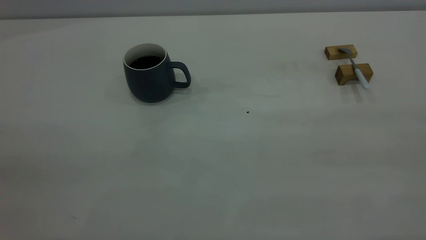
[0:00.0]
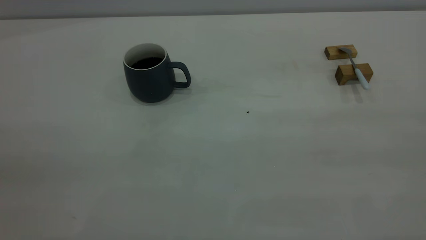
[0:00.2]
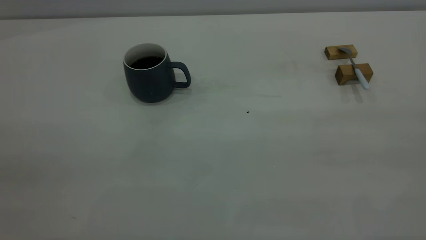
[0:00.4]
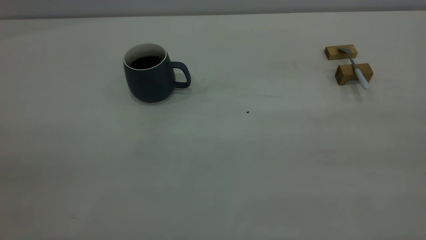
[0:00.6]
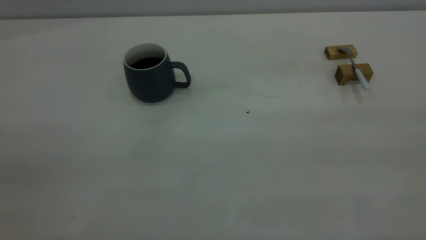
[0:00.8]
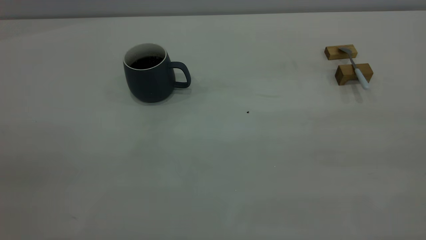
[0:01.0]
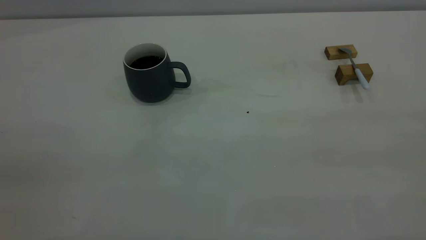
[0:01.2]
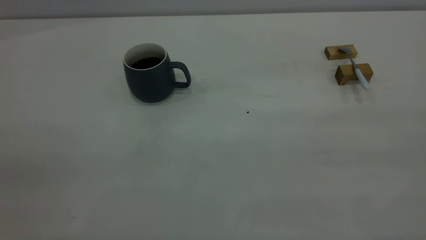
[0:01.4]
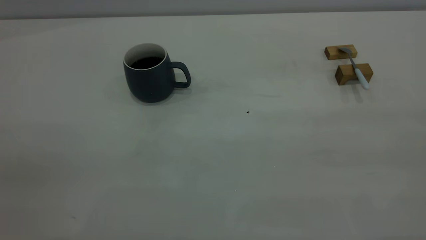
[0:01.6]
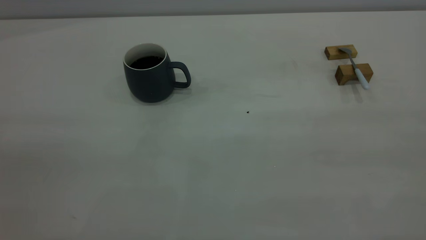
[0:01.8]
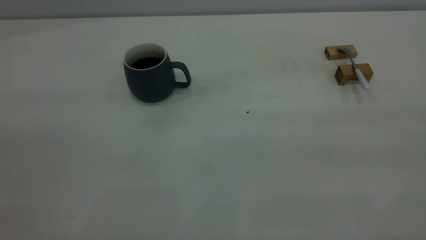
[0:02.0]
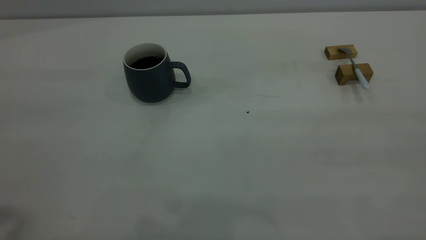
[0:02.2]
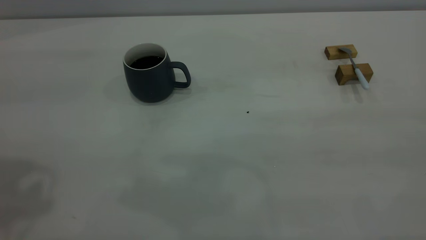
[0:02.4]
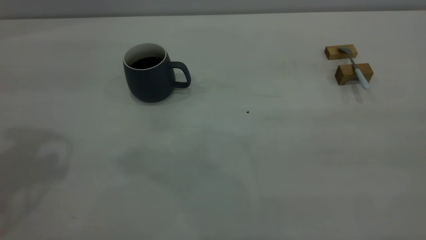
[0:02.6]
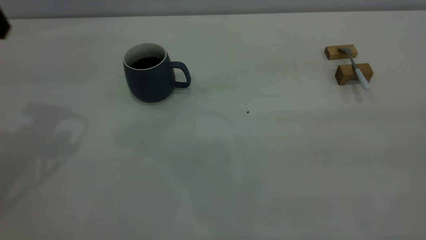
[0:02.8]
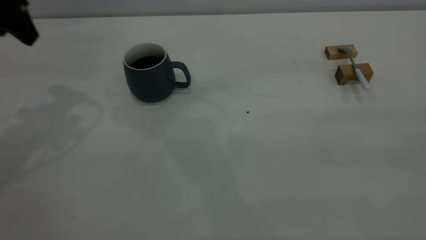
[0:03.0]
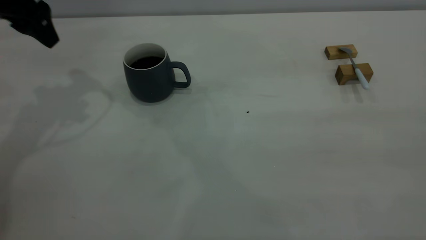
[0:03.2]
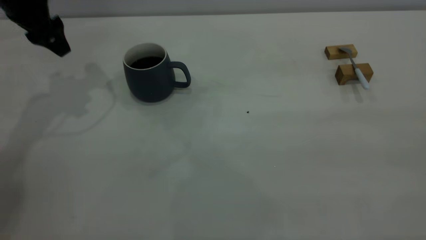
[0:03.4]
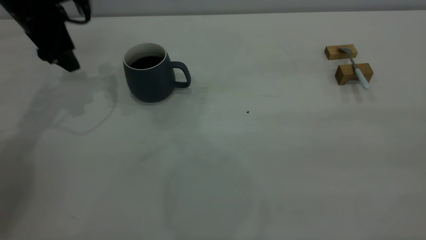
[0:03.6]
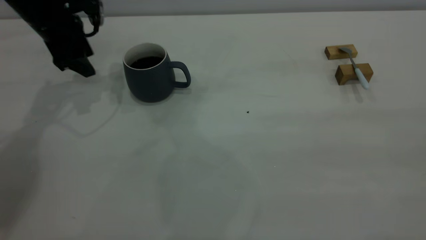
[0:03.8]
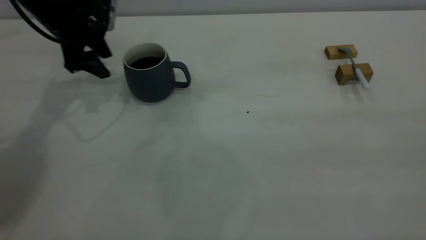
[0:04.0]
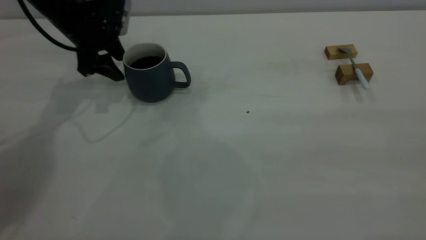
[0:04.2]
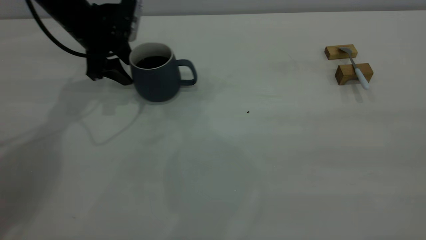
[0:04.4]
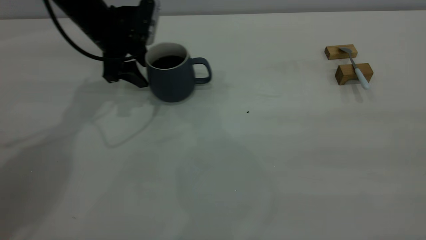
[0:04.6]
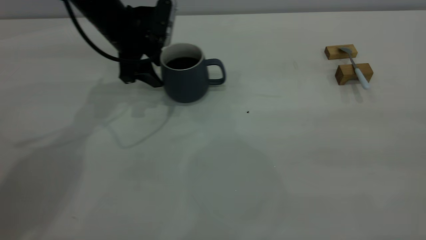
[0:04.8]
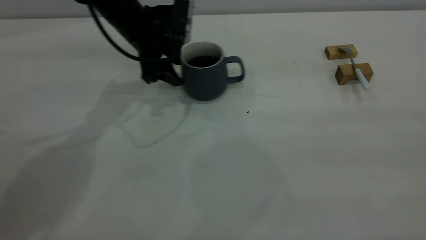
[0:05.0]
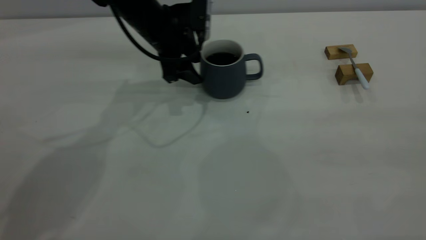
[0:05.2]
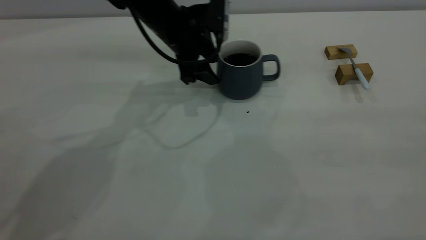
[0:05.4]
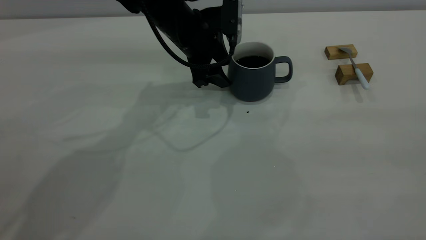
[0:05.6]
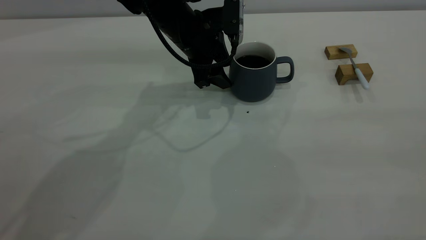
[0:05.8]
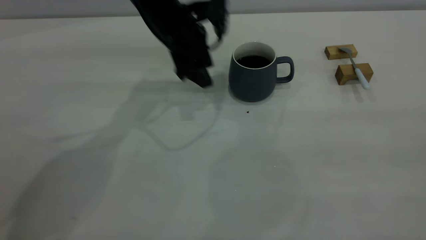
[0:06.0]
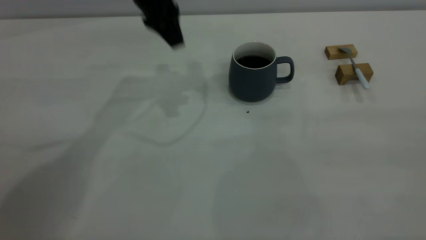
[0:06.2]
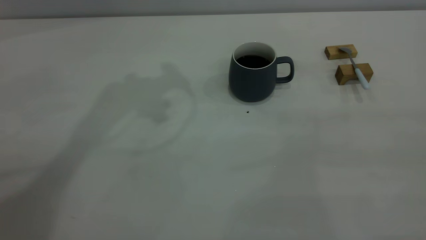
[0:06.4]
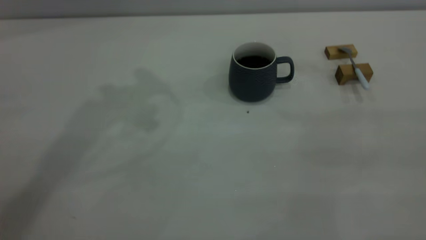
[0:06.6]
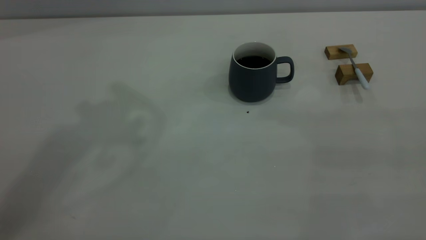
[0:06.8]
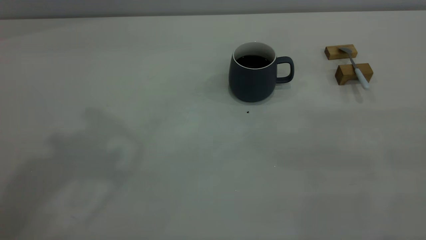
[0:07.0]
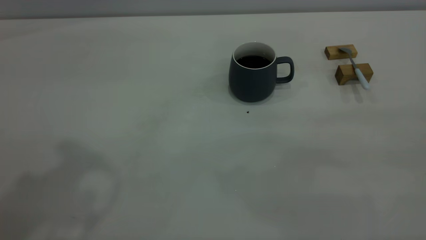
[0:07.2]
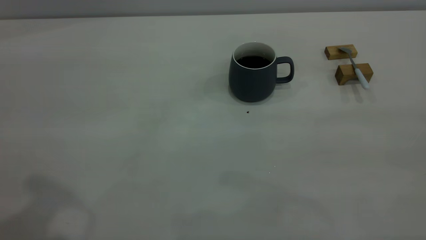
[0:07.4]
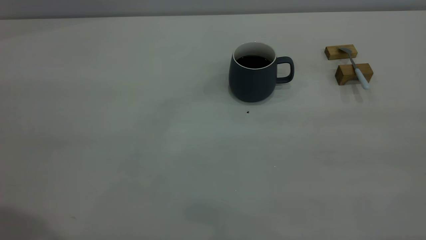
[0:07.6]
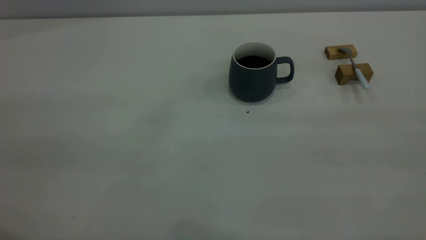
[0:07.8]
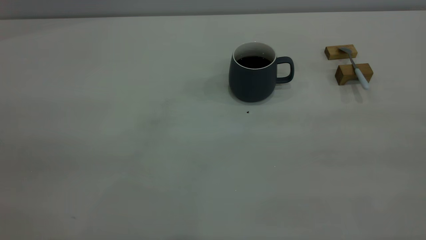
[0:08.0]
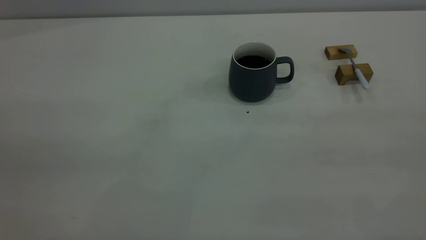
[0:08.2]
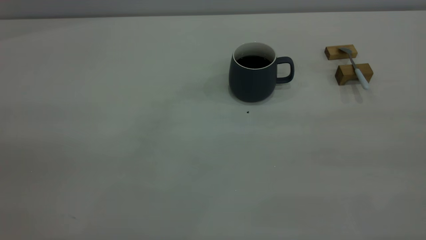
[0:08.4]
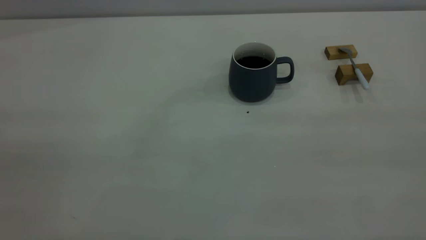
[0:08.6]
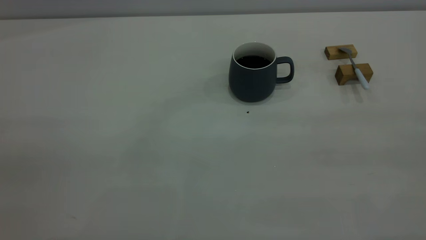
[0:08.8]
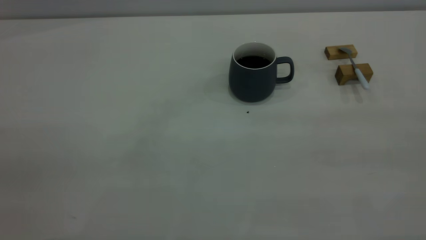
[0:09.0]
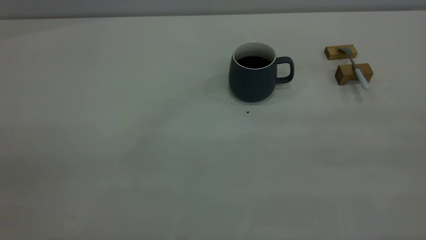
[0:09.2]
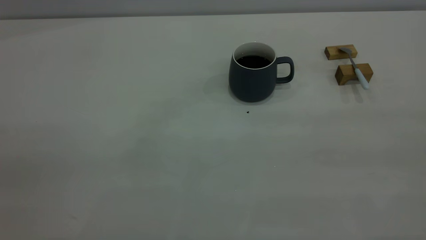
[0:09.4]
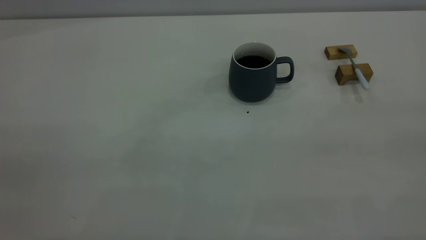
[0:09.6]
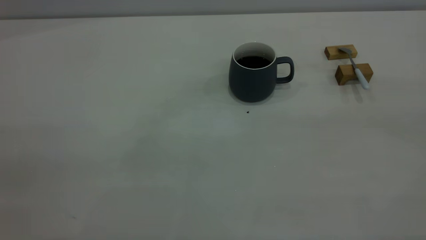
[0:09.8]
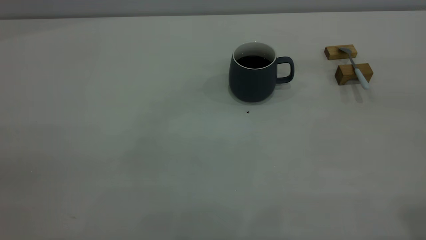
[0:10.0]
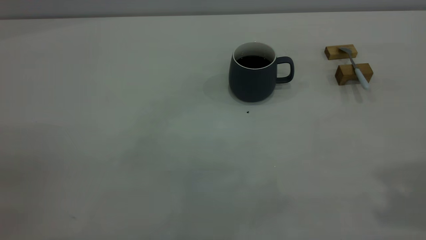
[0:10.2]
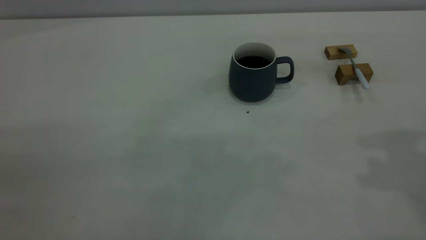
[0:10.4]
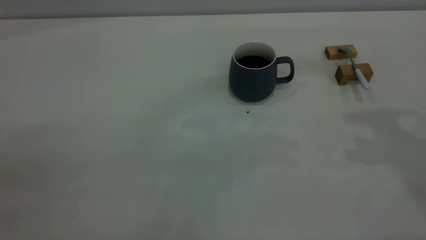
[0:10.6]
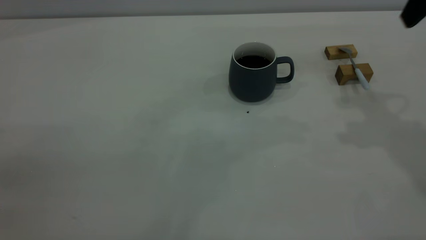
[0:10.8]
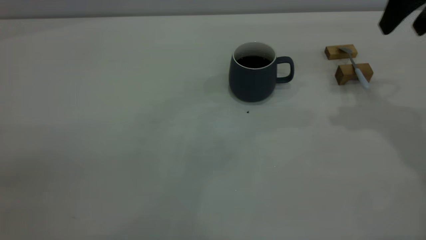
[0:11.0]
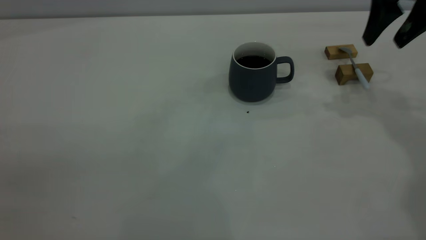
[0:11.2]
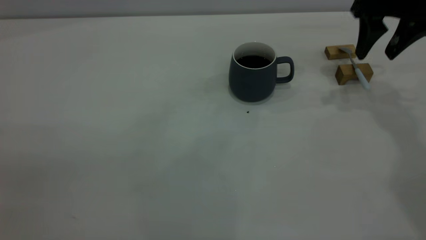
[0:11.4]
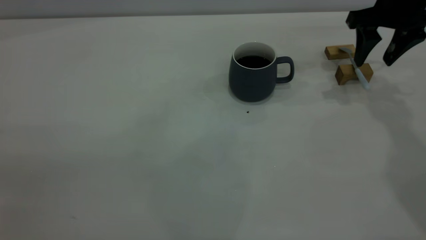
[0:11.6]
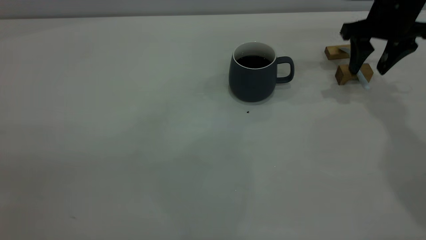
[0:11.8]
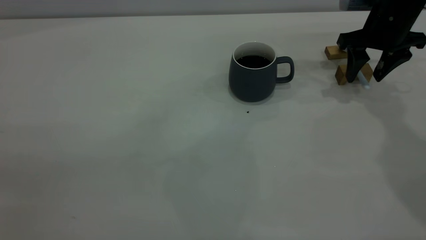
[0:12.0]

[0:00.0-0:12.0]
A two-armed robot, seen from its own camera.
Step, 0:00.0 to 0:06.0: Move the cup with coffee to the center of view.
0:00.0 to 0:01.6: Both grippers stay about where they are.
0:01.6 to 0:03.0: The left gripper shifts some 35 cm forward.
0:03.0 to 0:04.4: The left gripper heads downward, forward and to the right, covering approximately 20 cm.
0:04.4 to 0:06.0: The left gripper heads to the right, covering about 15 cm.
0:06.0 to 0:07.6: The left gripper heads backward, upward and to the left, covering about 40 cm.
0:10.4 to 0:12.0: The right gripper shifts some 30 cm downward and forward.

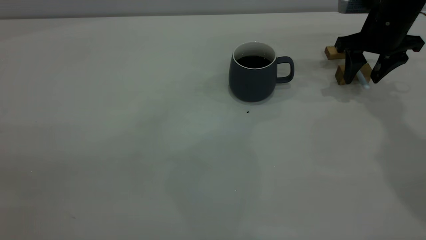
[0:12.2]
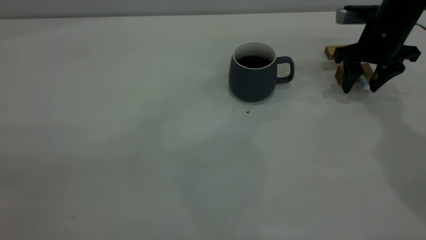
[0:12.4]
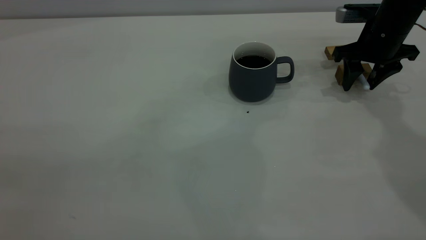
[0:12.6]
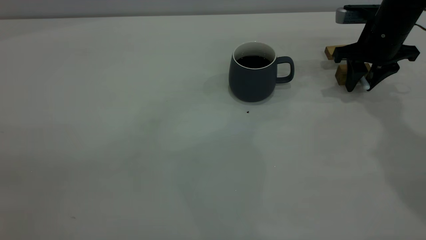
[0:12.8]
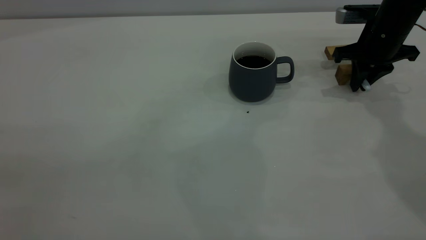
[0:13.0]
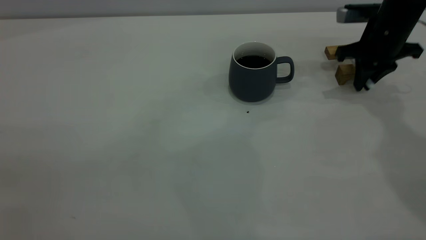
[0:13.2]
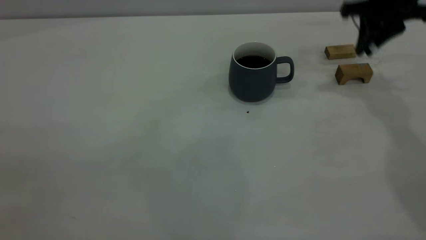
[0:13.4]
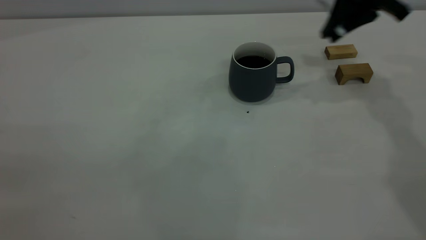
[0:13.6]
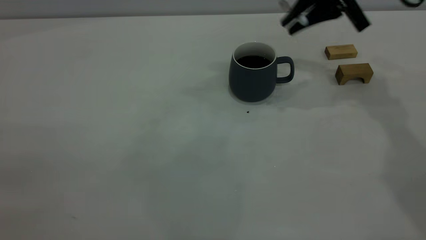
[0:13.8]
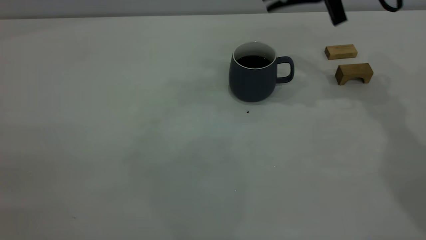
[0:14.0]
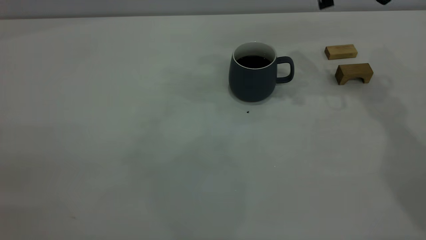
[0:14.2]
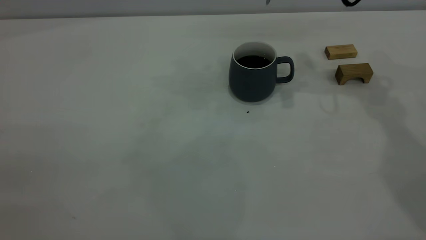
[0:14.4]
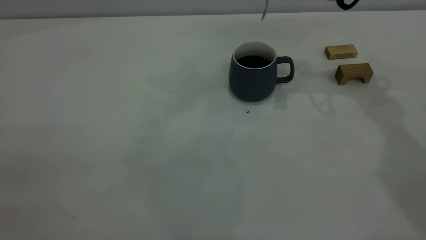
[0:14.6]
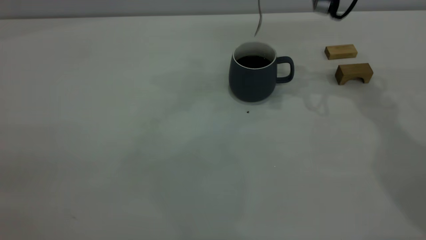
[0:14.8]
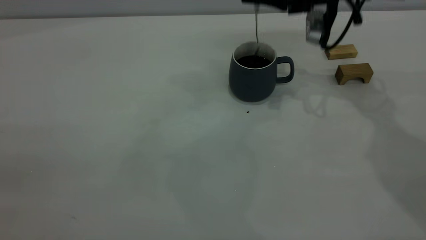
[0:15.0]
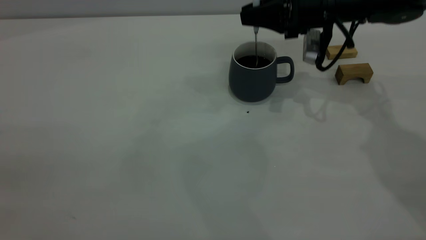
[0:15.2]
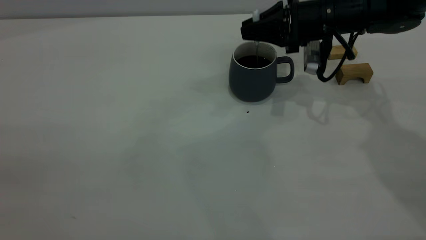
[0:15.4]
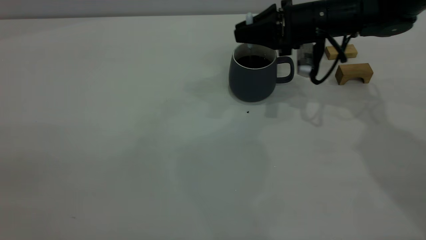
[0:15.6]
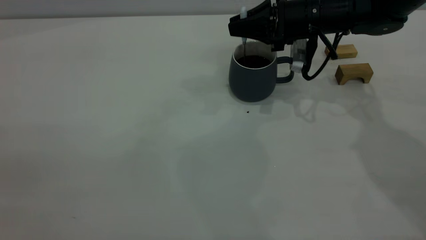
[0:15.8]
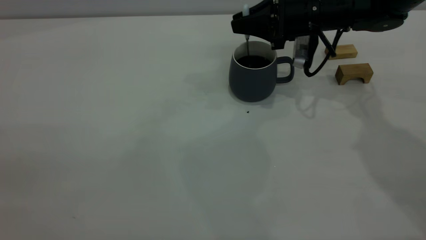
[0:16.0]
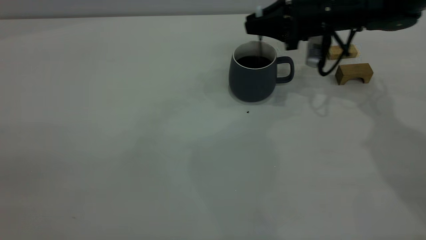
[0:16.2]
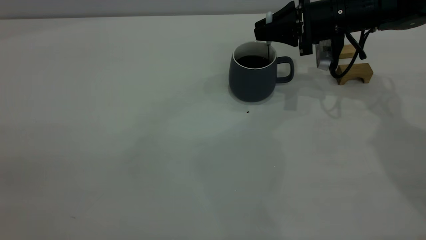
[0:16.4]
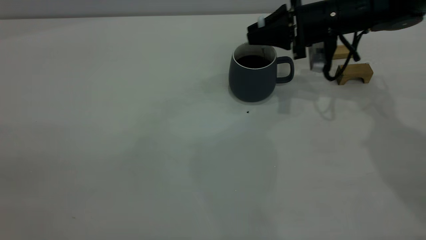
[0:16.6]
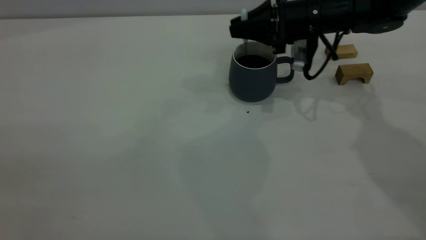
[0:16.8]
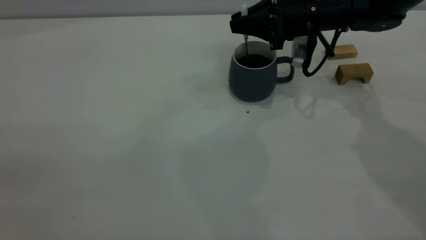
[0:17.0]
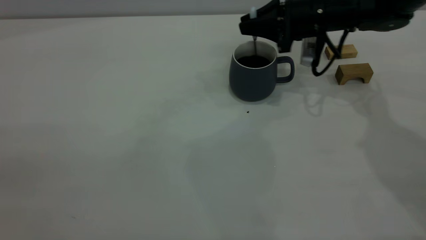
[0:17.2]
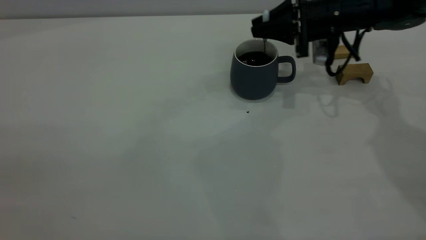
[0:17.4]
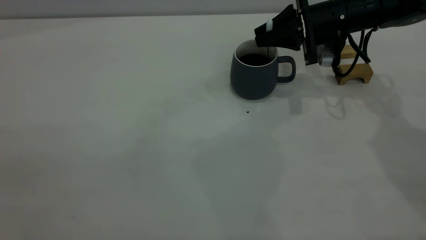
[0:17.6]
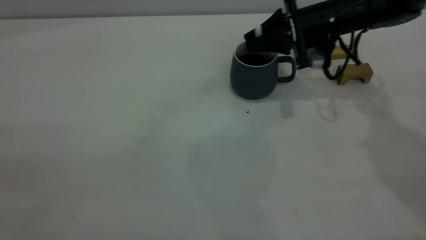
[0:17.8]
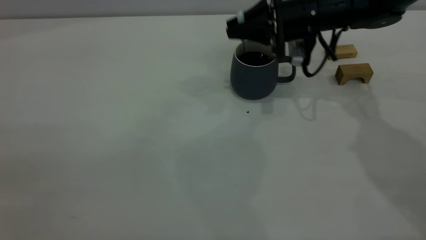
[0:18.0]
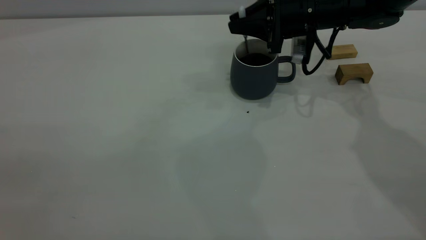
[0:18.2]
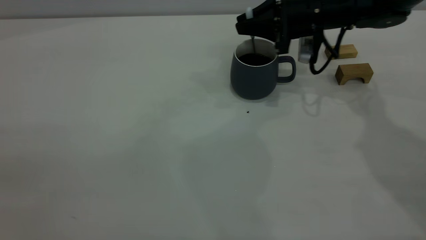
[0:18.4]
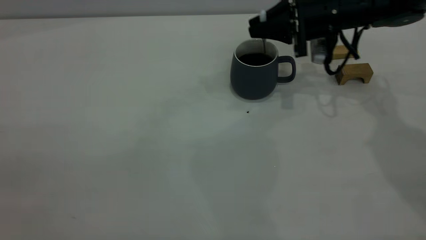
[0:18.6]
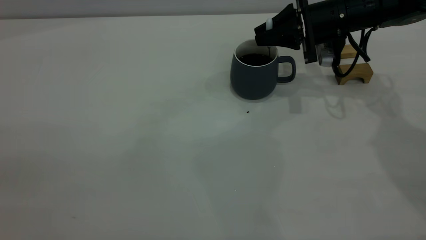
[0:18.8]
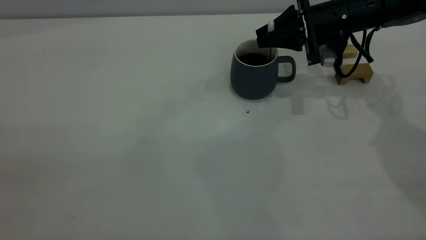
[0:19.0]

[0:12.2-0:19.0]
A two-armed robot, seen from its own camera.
0:12.2 to 0:13.6: The right gripper travels upward by approximately 10 cm, and closes up.
0:13.6 to 0:15.0: The right gripper is displaced downward and to the left by roughly 5 cm.
0:15.0 to 0:16.2: The right gripper moves some 5 cm.
0:16.2 to 0:19.0: The grippers stay close to where they were, moving slightly.
